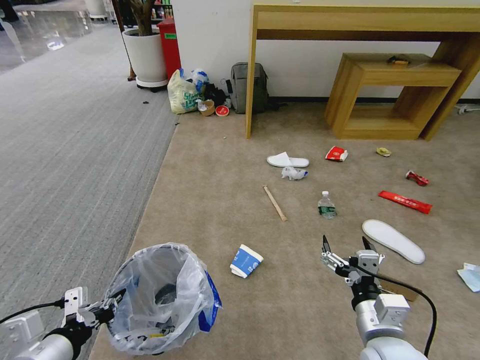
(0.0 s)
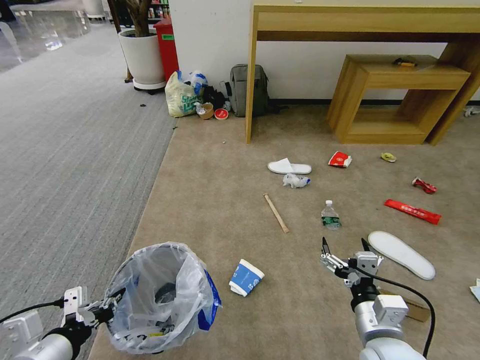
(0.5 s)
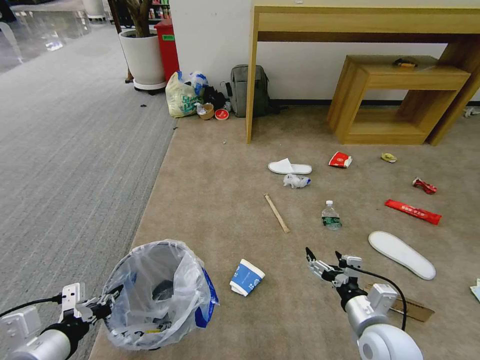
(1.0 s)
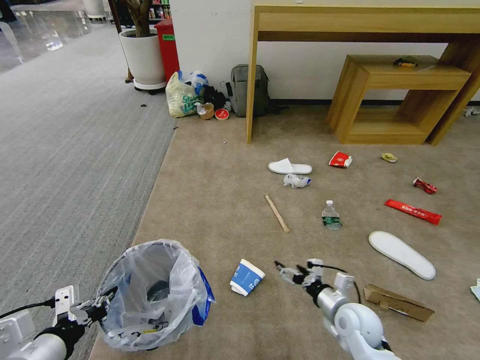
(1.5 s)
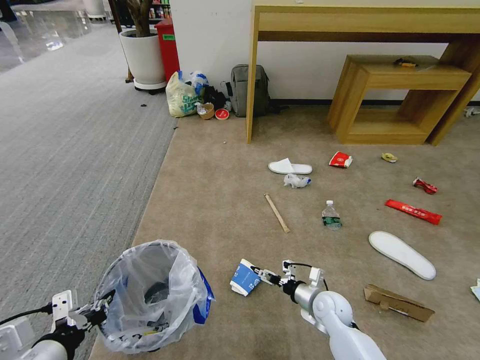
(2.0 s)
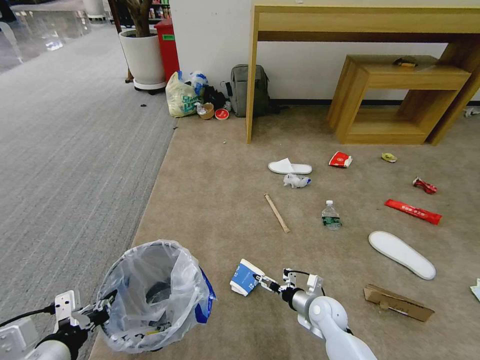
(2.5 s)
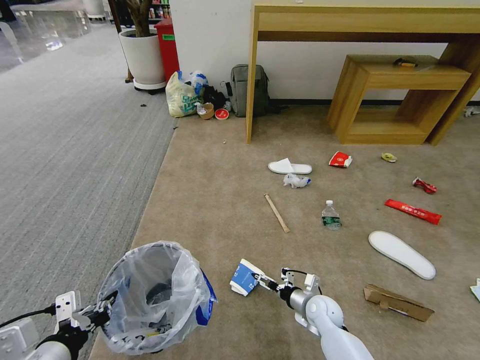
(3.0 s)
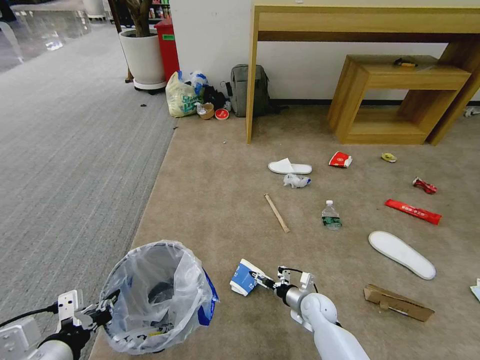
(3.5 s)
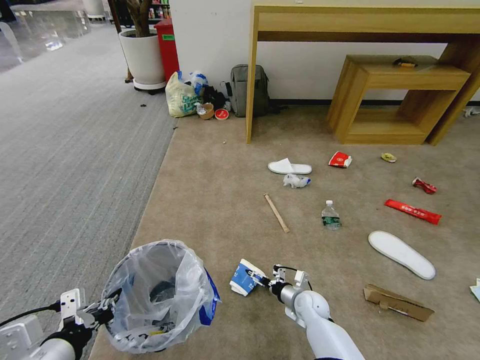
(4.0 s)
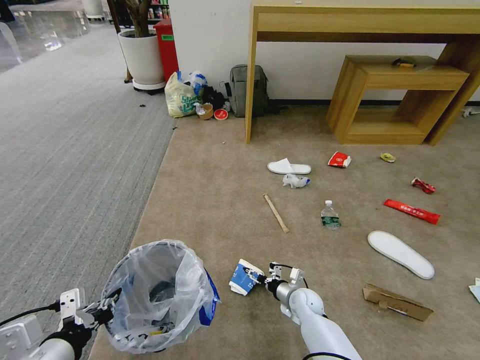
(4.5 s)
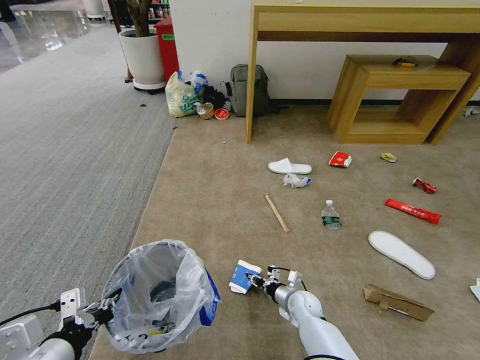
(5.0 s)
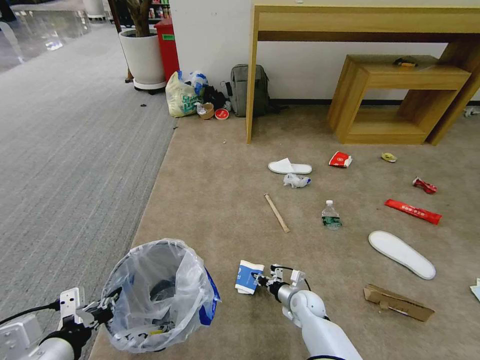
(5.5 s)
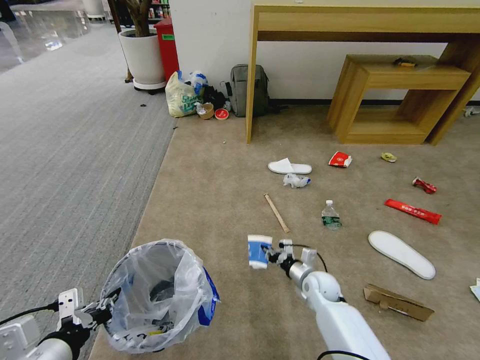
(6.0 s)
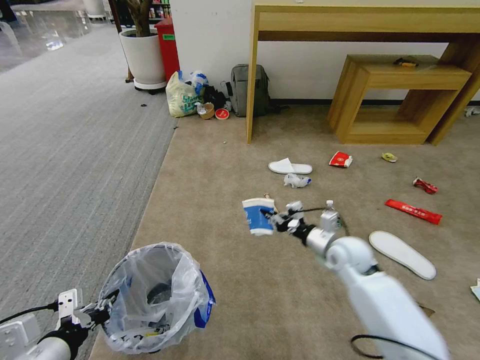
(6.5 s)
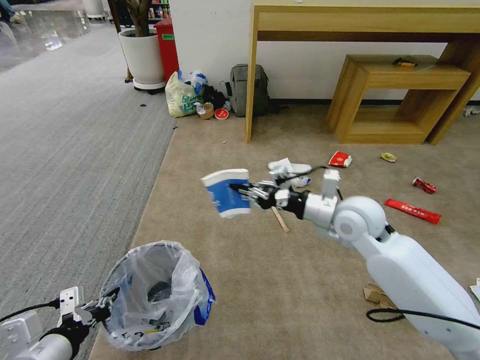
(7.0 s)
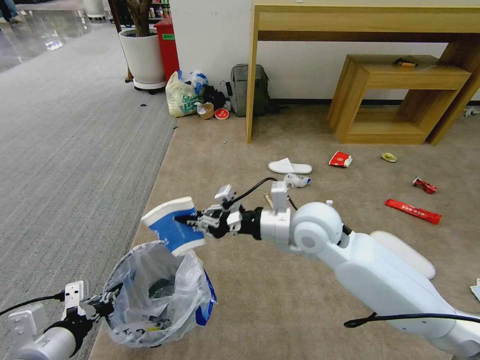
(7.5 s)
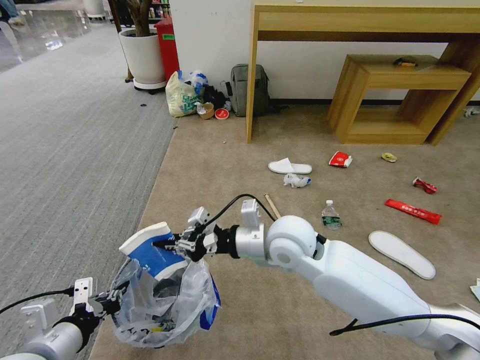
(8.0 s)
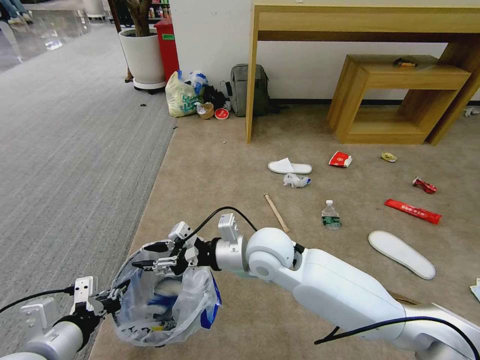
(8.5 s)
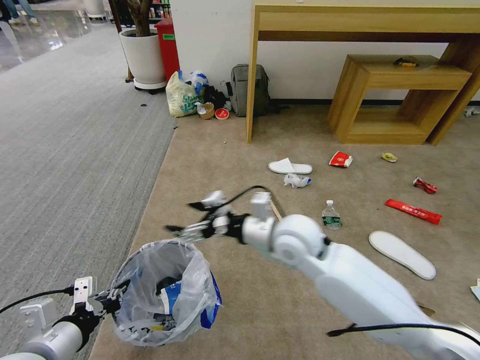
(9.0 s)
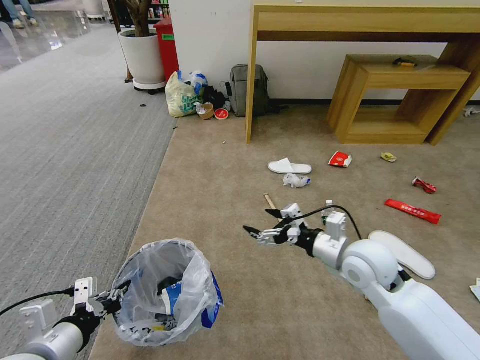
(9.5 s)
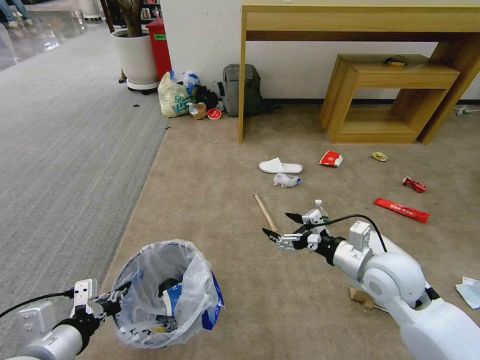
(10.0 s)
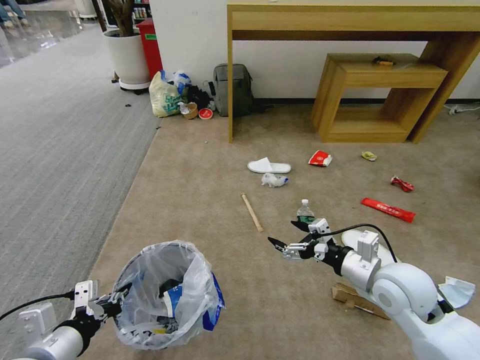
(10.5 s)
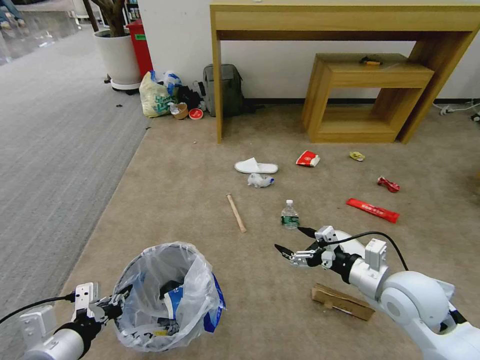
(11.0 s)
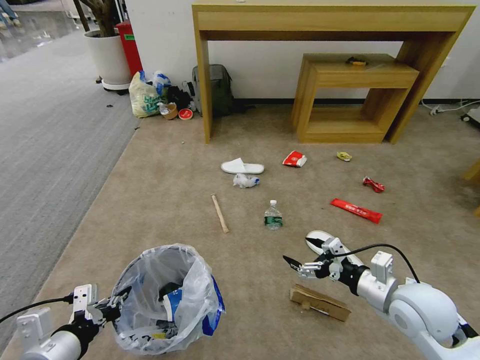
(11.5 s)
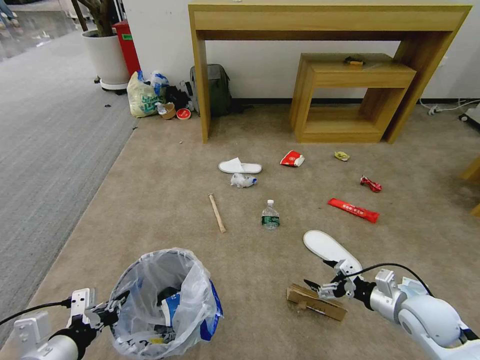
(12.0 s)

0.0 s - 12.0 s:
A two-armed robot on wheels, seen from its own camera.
Task of the whole recording: Pick up the trash bin and place the garbage on the floor into it.
0.0 s - 2.0 s: The right gripper moves downward and forward, about 25 cm.
2.0 s - 4.0 s: The right gripper heads downward, covering about 5 cm.
4.0 s - 6.0 s: The right gripper is displaced upward by some 5 cm, and closes up.
6.0 s - 8.0 s: The right gripper travels upward and to the left by about 30 cm.
8.0 s - 10.0 s: The right gripper moves to the right, roughly 20 cm, and opens up.
10.0 s - 12.0 s: The right gripper is displaced to the right and downward by roughly 15 cm.

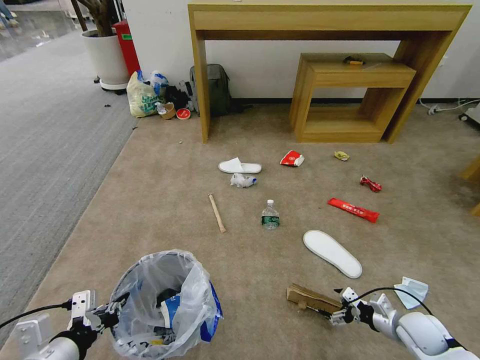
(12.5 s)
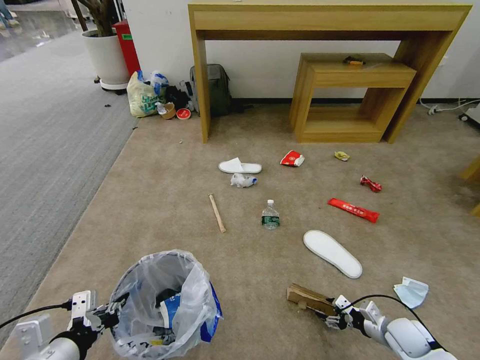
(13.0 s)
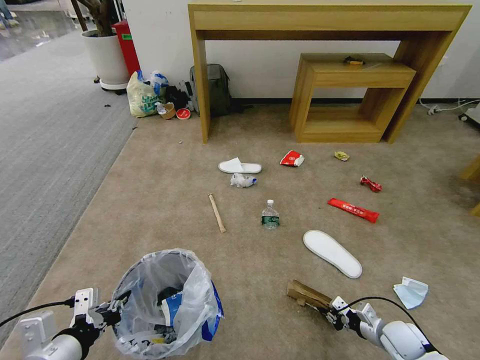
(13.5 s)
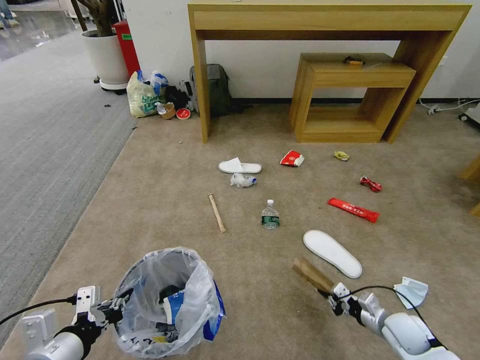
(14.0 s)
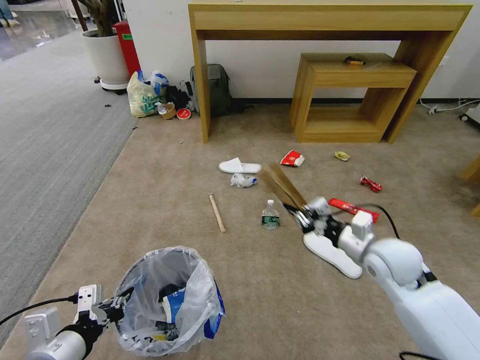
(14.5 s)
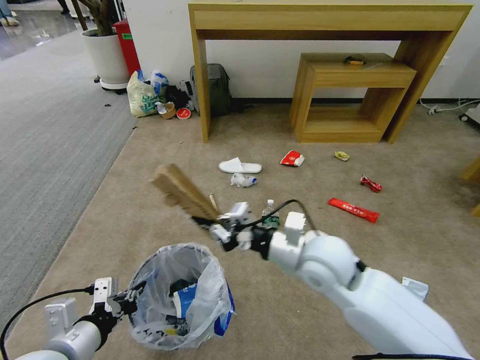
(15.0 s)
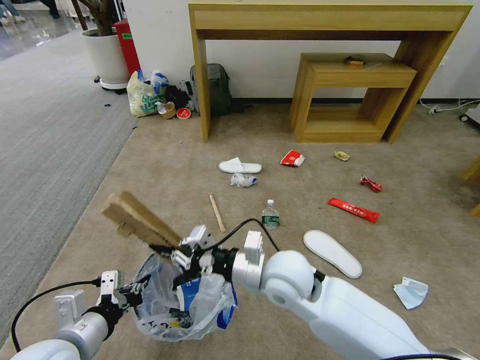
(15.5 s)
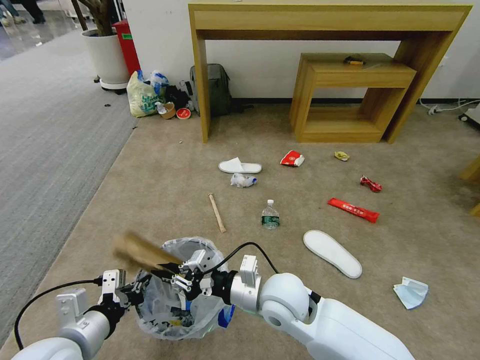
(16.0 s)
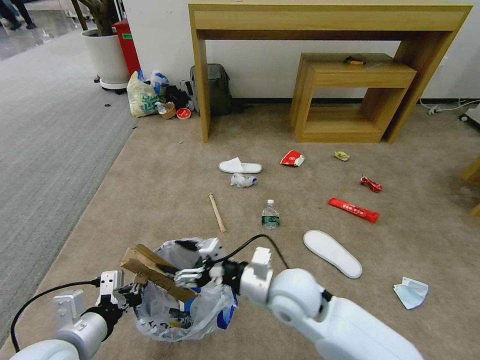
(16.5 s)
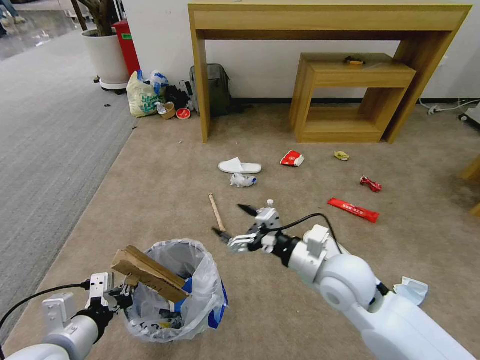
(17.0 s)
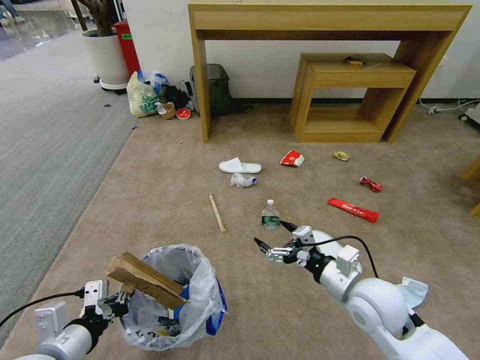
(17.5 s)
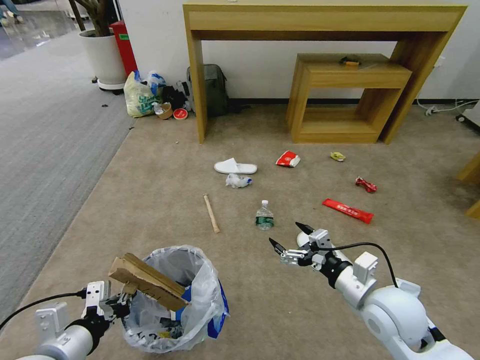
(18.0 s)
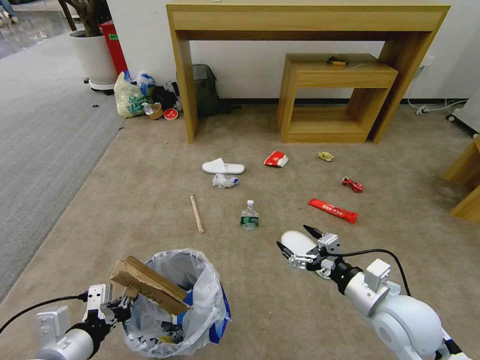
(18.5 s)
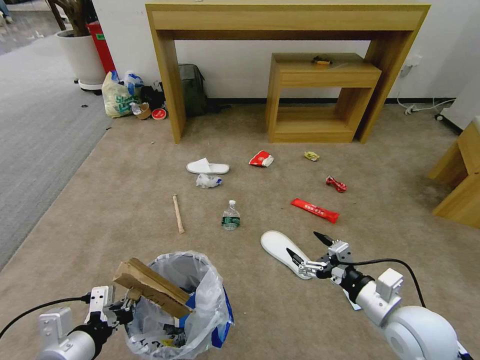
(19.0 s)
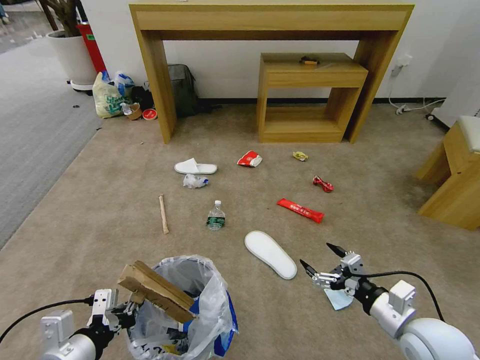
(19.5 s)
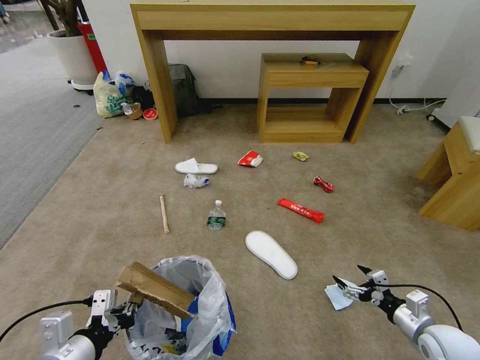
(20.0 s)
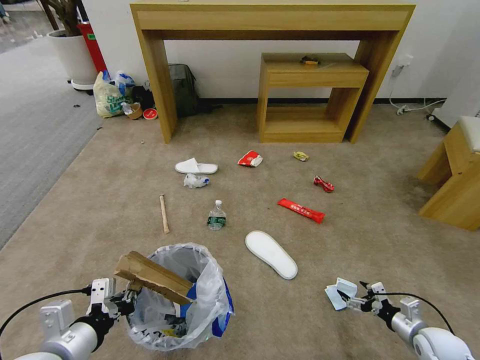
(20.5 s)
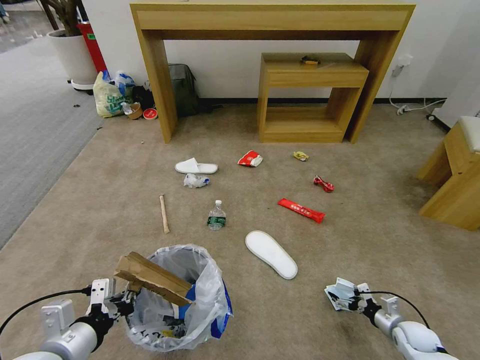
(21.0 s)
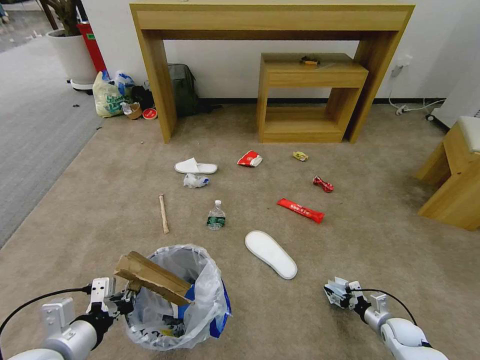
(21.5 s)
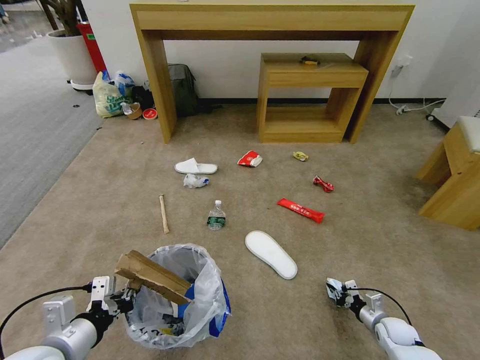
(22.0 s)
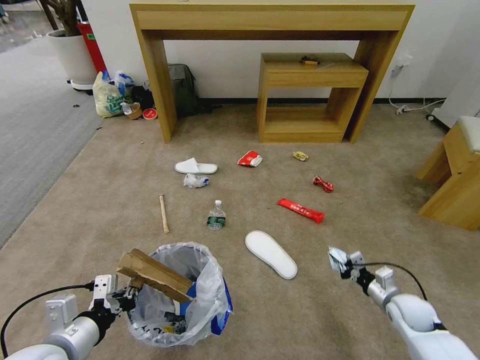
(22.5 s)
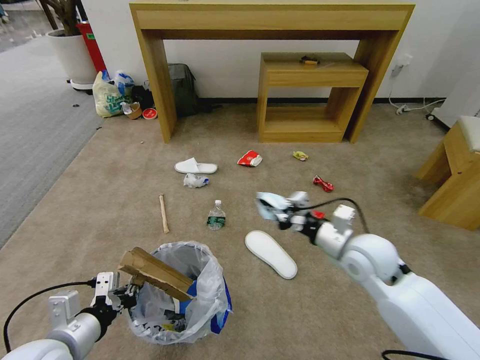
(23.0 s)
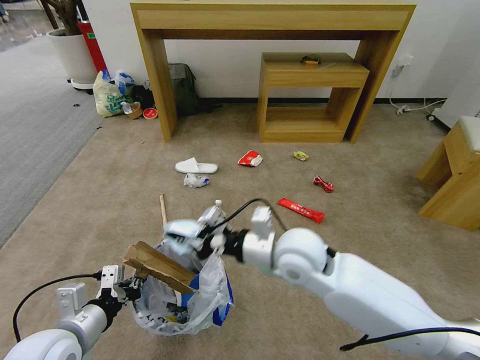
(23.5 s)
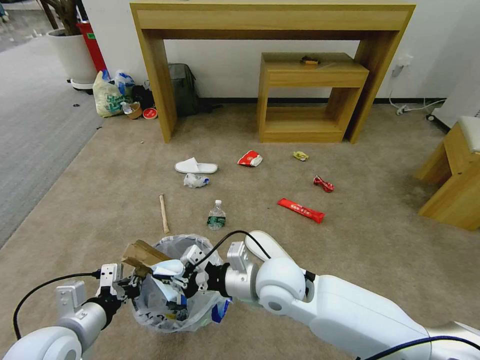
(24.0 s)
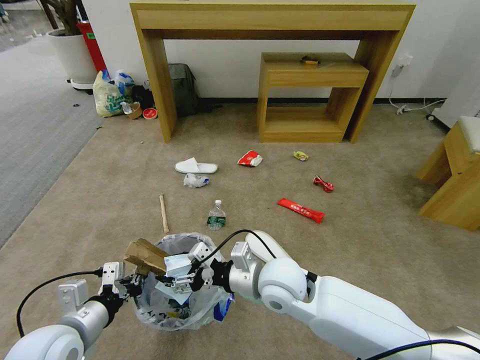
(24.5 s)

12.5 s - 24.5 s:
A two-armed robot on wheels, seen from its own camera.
Task of the whole recording: Pick up the trash bin and place the garbage on the floor into it.
12.5 s - 14.5 s: The right gripper shifts approximately 25 cm upward, to the left and forward, and closes up.
14.5 s - 16.5 s: The right gripper shifts roughly 20 cm to the left, and opens up.
16.5 s - 18.5 s: The right gripper heads to the right, covering approximately 20 cm.
18.5 s - 20.5 s: The right gripper shifts some 30 cm downward and to the right.
20.5 s - 22.5 s: The right gripper travels forward and to the left by about 10 cm, goes downward and returns, some 10 cm each way, and closes up.
22.5 s - 24.5 s: The right gripper goes about 40 cm to the left and upward, and opens.

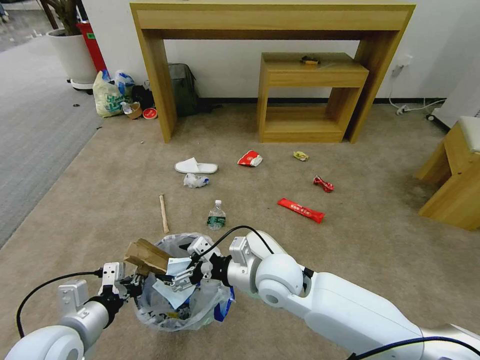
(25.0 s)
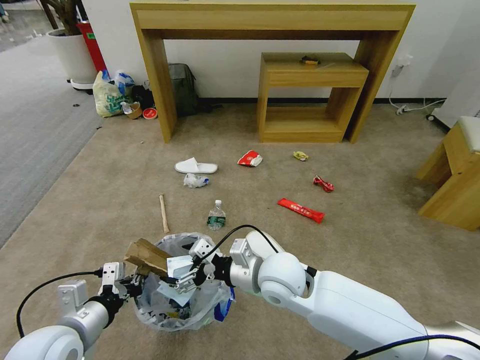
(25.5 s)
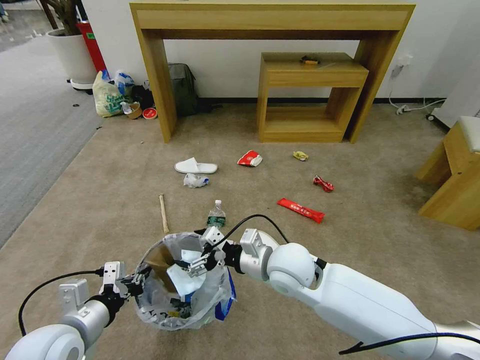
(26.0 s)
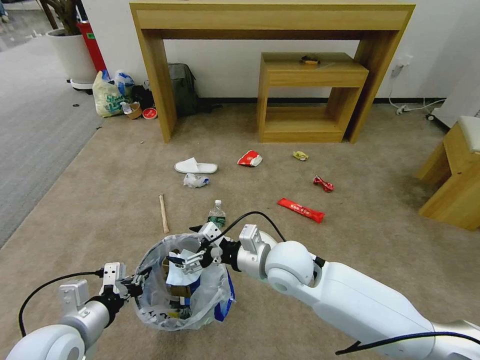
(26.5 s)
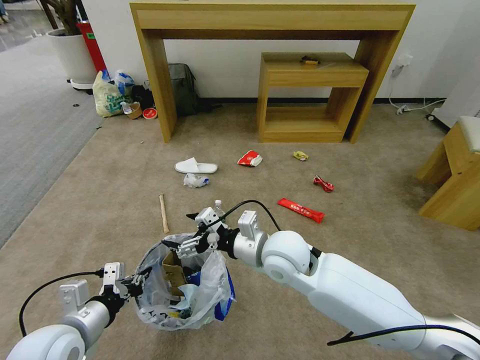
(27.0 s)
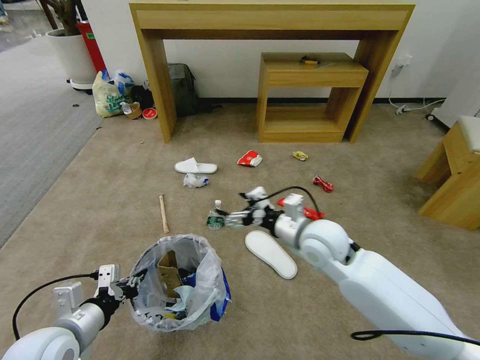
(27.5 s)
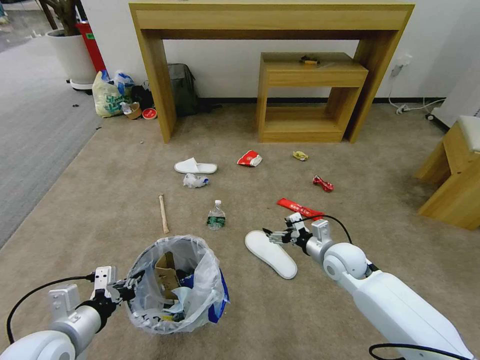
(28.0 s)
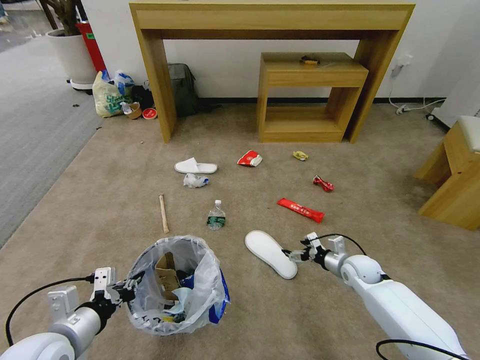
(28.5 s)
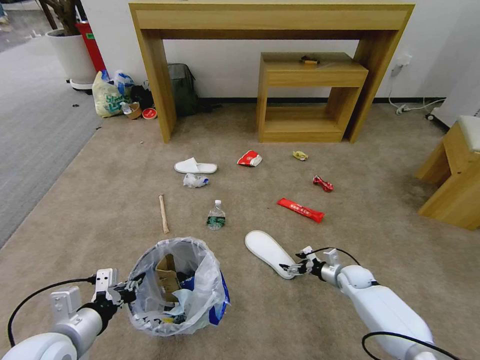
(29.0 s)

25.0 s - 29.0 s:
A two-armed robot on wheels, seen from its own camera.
Task of the whole recording: Pick up the trash bin and place the garbage on the floor into it.
25.0 s - 27.0 s: There are only small adjustments of the grippers.
27.0 s - 29.0 s: The right gripper shifts some 40 cm to the right and downward.
